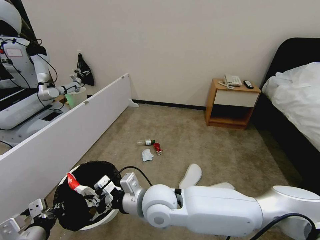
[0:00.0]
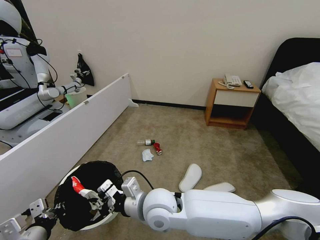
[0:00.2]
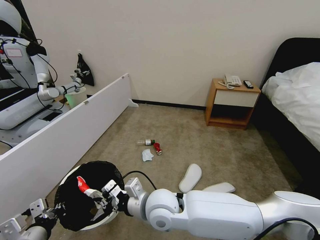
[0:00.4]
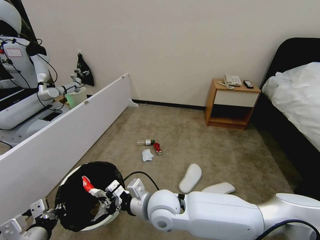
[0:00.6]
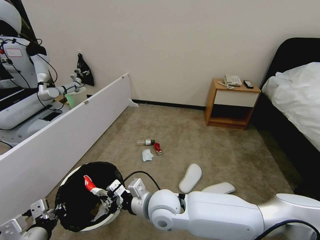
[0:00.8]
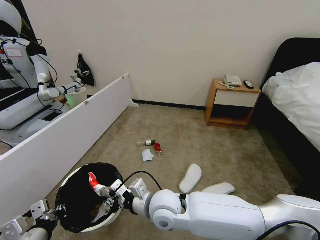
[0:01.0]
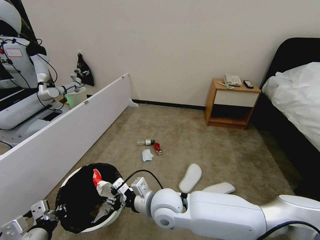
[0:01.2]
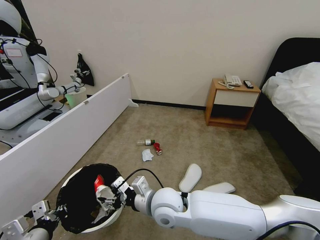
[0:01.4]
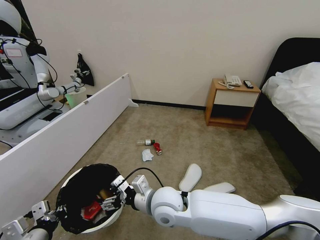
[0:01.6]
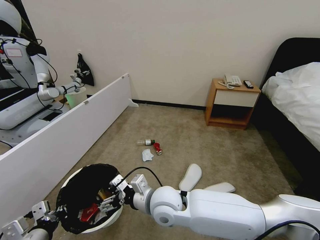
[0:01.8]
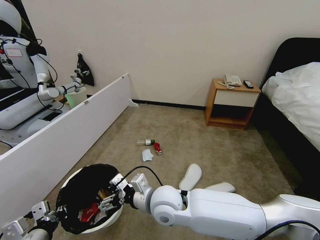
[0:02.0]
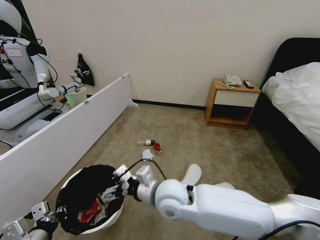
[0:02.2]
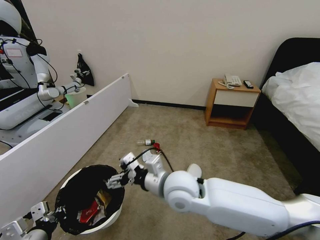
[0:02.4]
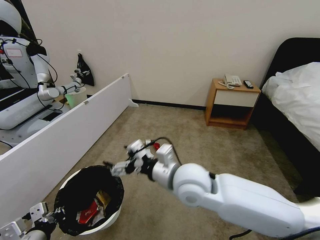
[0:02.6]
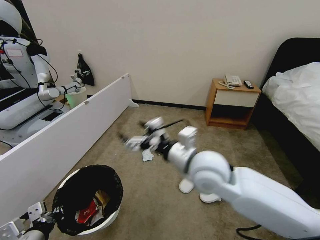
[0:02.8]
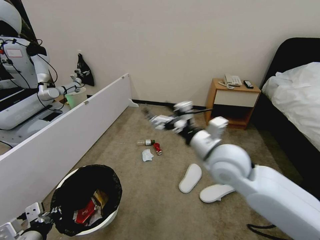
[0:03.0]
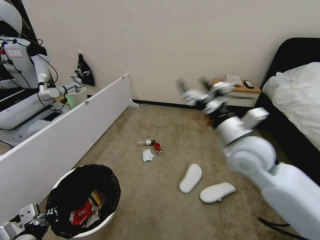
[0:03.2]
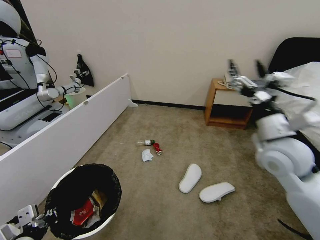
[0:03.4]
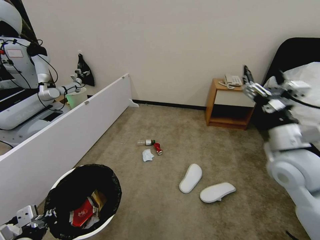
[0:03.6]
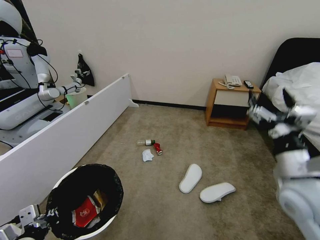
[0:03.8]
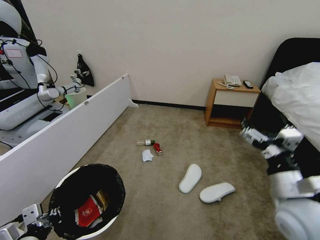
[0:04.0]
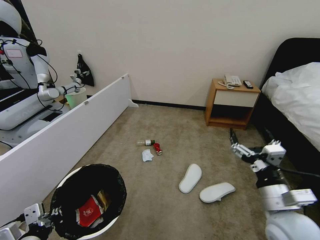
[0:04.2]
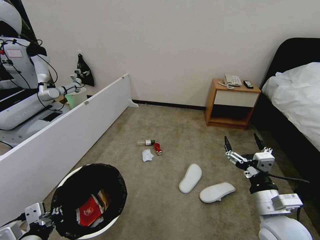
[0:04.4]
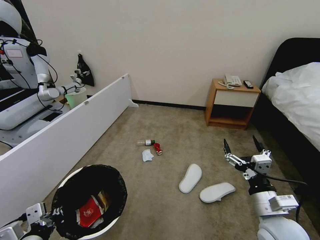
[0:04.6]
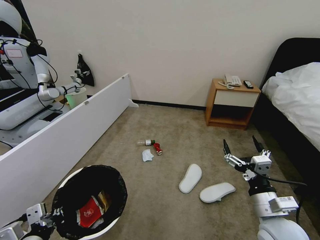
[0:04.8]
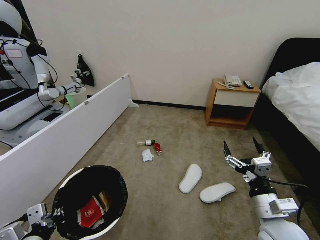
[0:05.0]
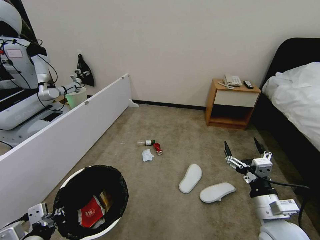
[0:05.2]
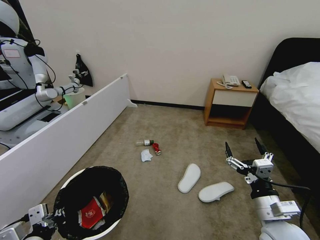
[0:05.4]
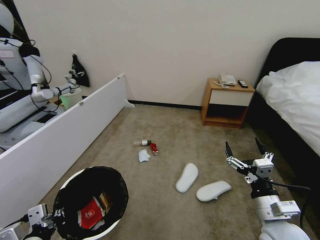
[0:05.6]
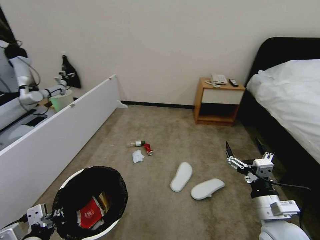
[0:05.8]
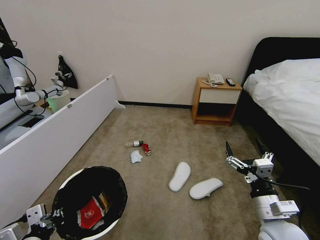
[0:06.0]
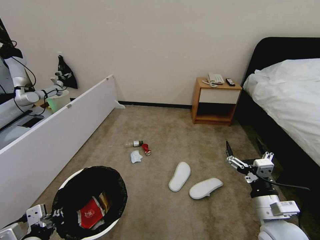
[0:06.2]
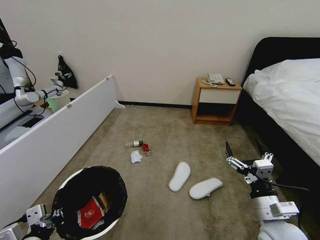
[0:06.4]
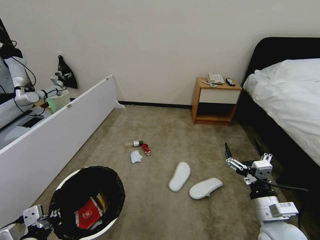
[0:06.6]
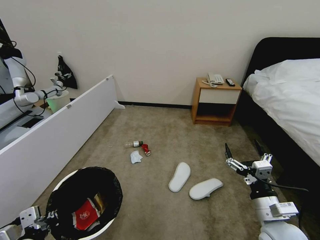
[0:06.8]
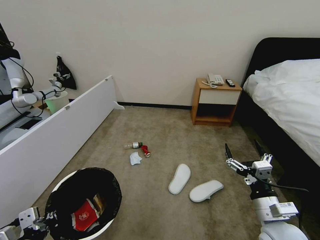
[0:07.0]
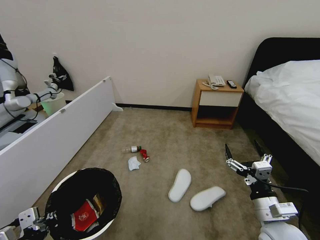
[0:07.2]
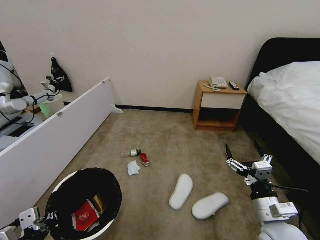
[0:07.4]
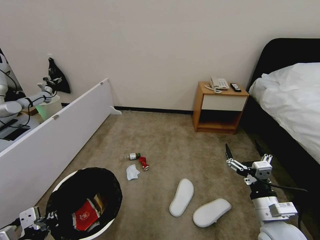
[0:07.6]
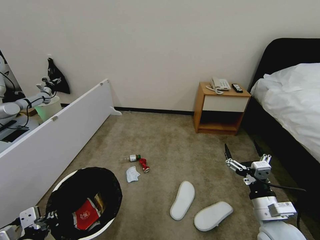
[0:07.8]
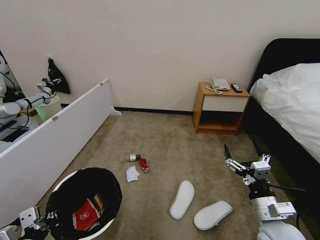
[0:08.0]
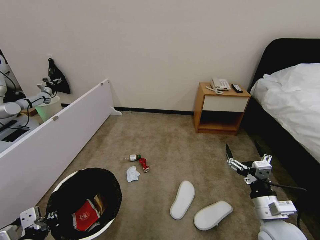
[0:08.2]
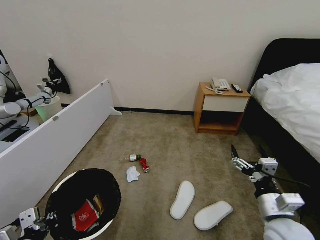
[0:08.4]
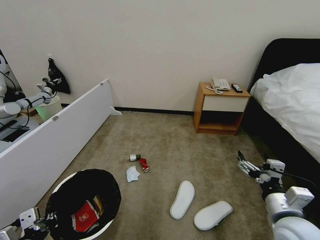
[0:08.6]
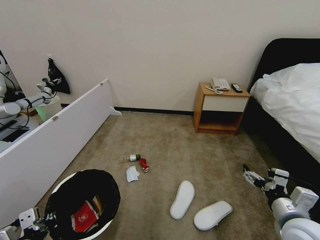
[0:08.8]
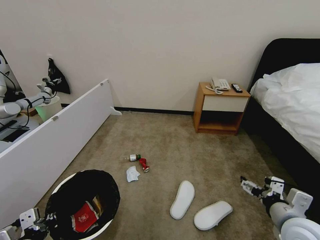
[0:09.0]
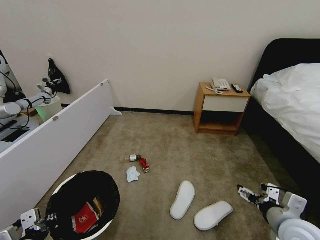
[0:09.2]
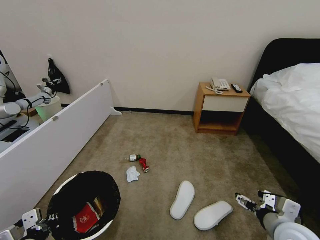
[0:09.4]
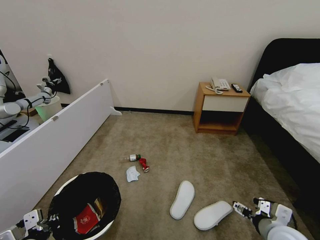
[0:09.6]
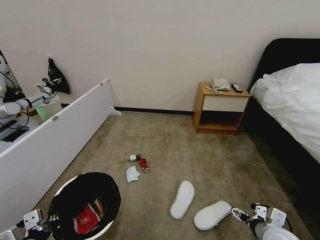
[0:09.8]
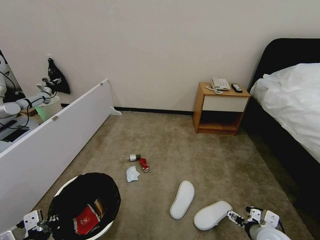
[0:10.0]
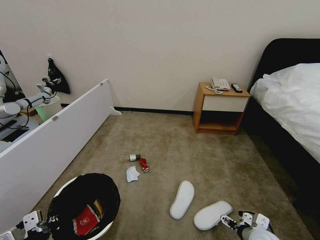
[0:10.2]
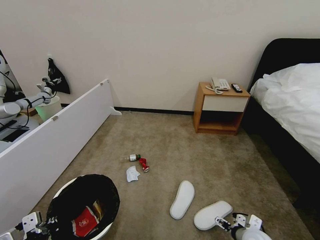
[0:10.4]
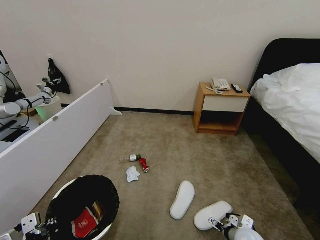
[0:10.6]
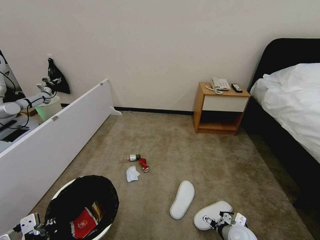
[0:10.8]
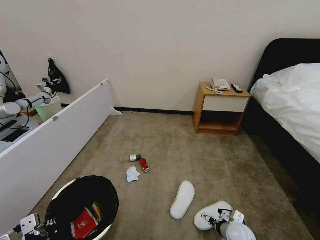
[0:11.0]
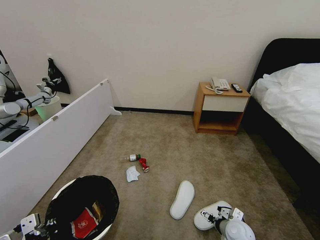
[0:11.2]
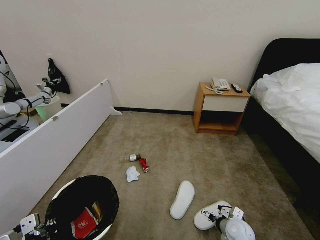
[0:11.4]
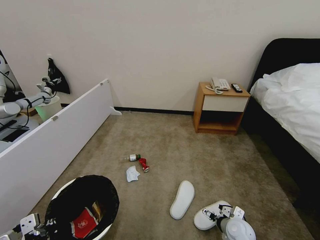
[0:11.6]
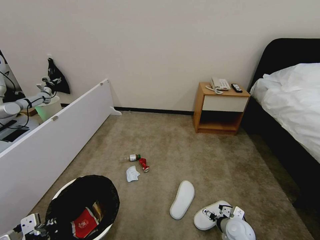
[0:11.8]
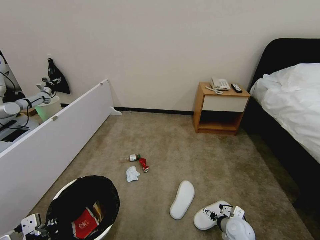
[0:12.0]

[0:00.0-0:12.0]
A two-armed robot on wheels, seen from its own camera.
Task of the whole recording: Pick up the trash bin and place the garbage on the floor into it.
0:00.0 to 0:01.6: The right gripper opens.
0:01.6 to 0:03.0: The right gripper goes some 20 cm to the right and upward.
0:03.0 to 0:04.4: The right gripper heads downward, backward and to the right, covering approximately 20 cm.
0:07.6 to 0:09.0: The right gripper moves roughly 5 cm.
0:09.0 to 0:10.4: The right gripper moves downward, approximately 20 cm.
0:10.4 to 0:12.0: The right gripper is displaced forward by roughly 5 cm.

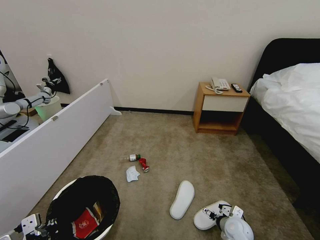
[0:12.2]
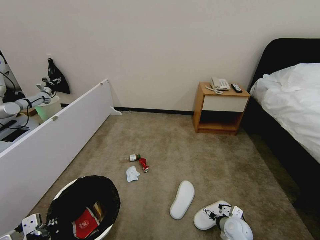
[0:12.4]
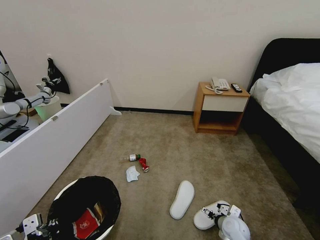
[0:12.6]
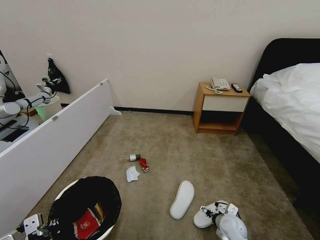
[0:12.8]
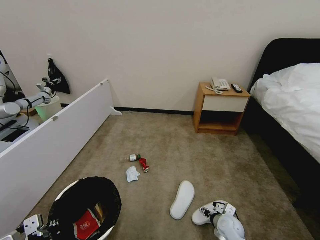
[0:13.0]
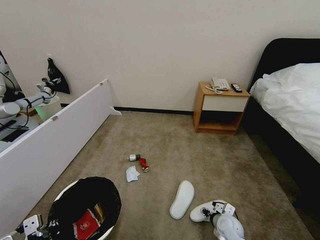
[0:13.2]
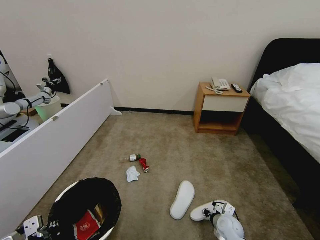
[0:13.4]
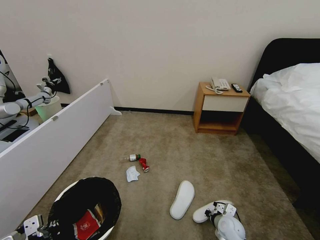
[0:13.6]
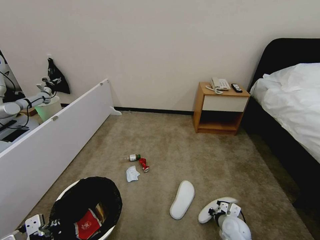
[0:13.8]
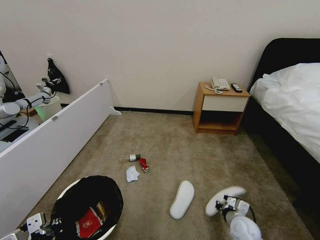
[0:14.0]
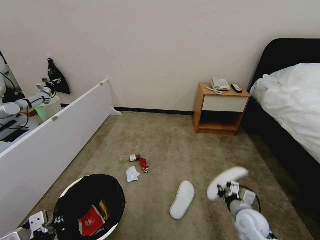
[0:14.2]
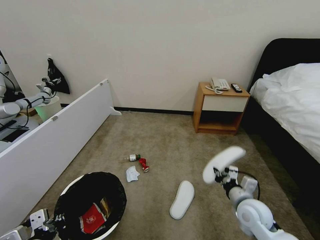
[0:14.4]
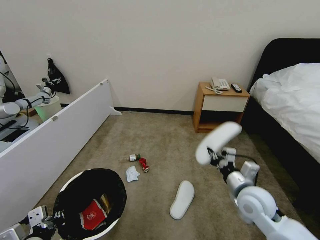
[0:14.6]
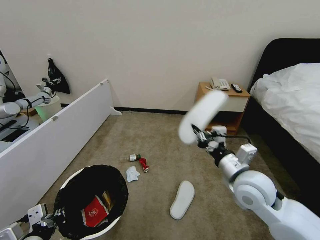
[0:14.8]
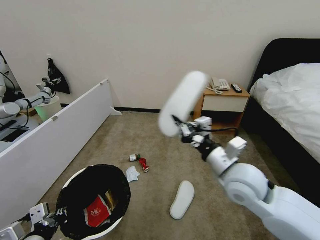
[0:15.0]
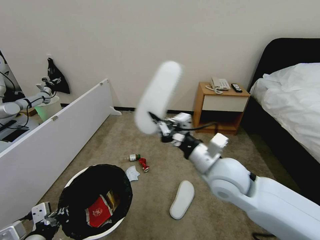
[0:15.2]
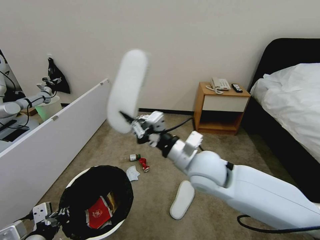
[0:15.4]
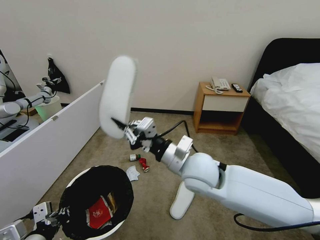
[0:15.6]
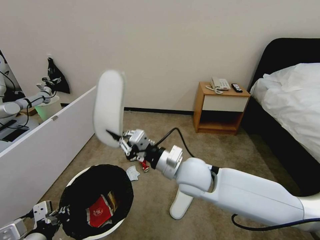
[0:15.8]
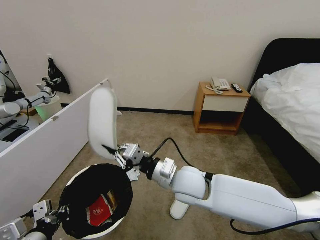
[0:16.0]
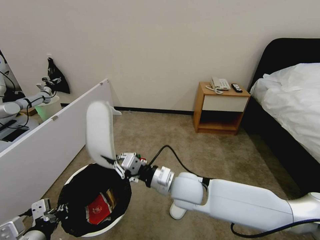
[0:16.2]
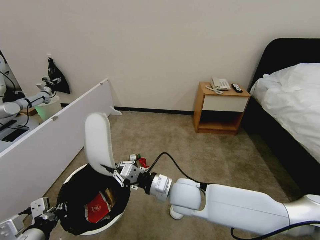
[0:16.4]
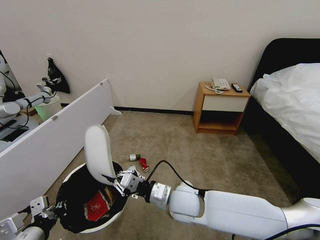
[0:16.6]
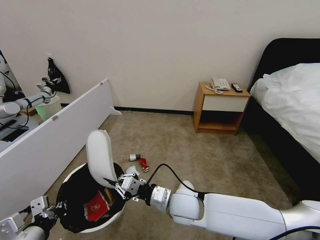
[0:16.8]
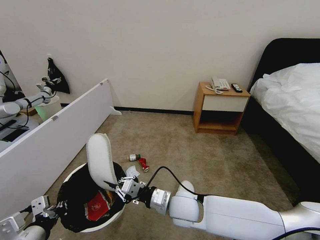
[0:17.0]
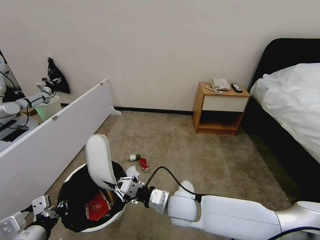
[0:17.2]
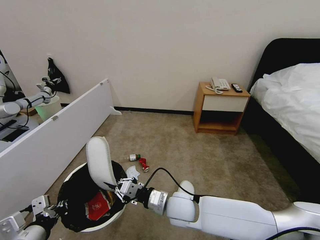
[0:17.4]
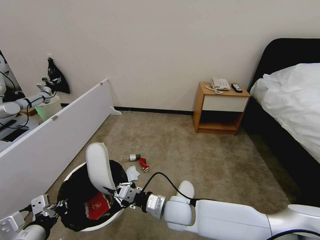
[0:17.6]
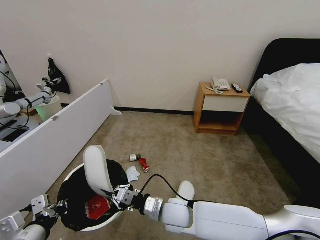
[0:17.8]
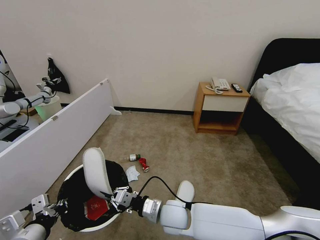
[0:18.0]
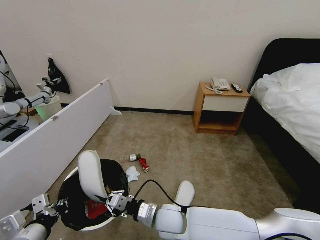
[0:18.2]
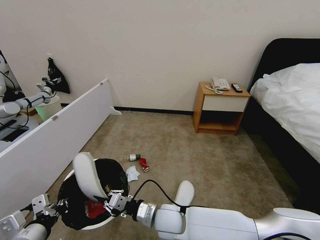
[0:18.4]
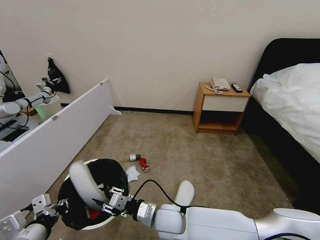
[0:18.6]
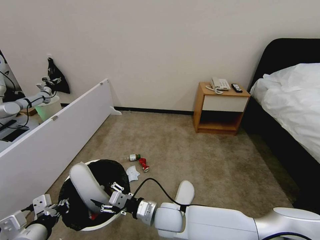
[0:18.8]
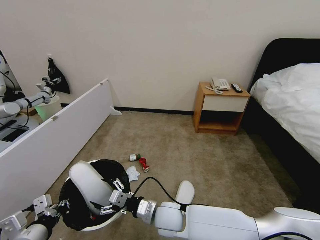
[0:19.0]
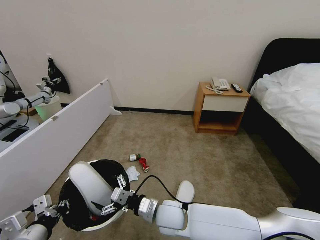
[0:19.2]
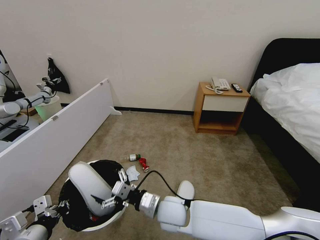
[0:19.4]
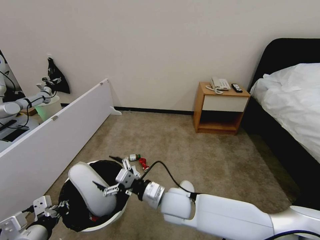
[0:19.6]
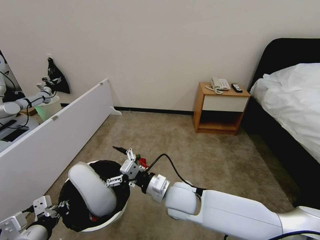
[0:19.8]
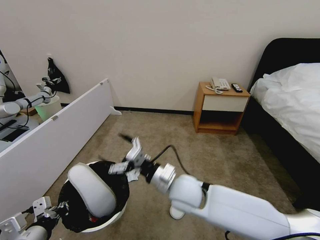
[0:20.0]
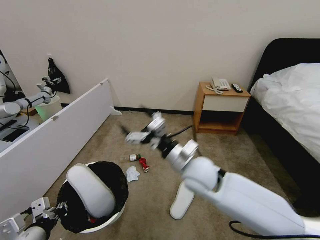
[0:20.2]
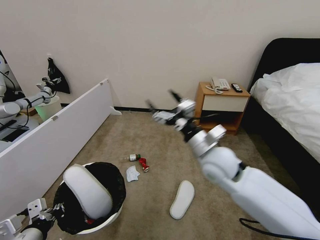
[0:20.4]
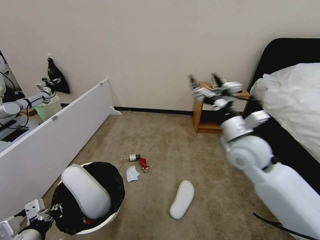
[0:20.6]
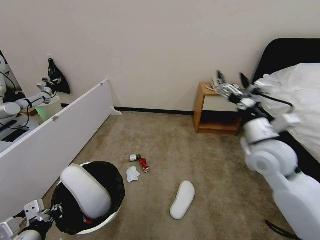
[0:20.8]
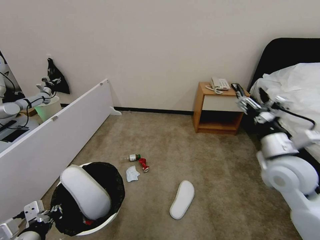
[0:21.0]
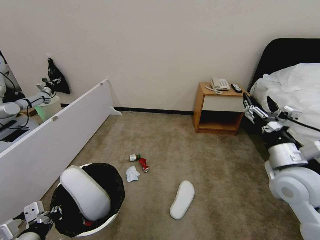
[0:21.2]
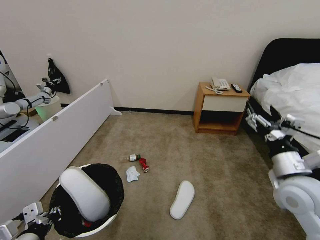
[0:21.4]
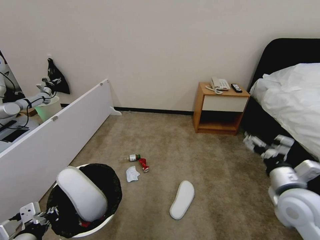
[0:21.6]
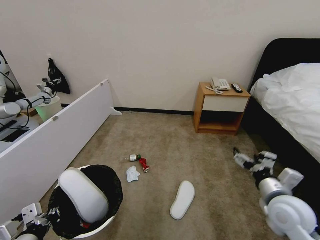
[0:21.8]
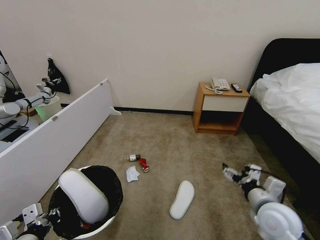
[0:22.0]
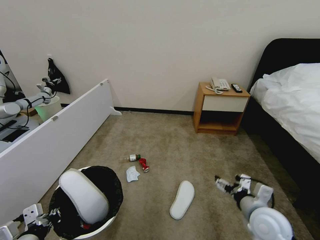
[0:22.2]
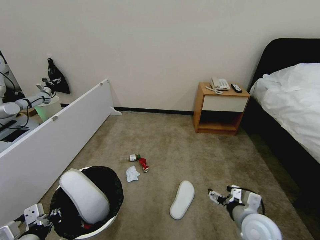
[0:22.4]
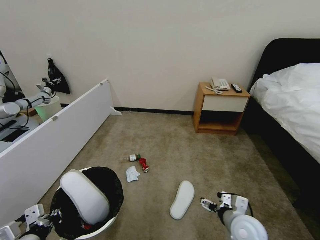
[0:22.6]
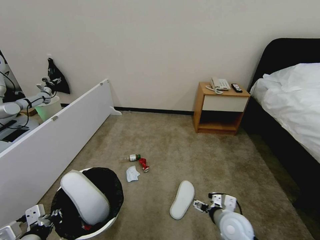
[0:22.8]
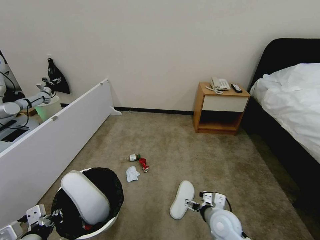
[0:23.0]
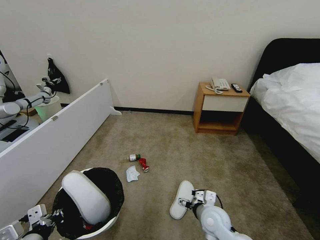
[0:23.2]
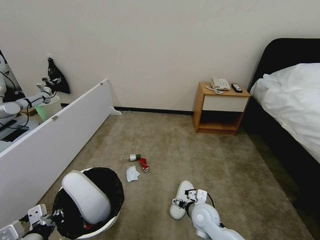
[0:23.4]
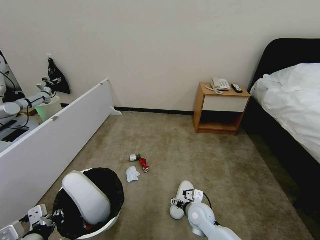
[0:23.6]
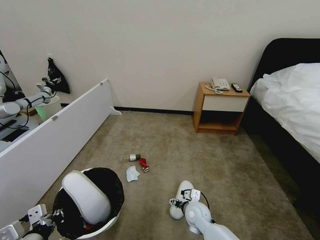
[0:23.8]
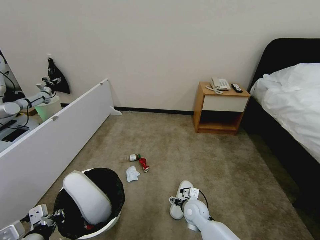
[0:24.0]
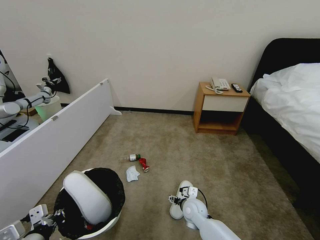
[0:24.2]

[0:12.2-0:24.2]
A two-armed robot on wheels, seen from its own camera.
Task of the whole recording: Pick up the trash bin and place the garbage on the floor into it.
0:12.2 to 0:13.8: The right gripper closes.
0:13.8 to 0:15.2: The right gripper is displaced upward by some 35 cm.
0:15.2 to 0:16.6: The right gripper is displaced downward and to the left by approximately 15 cm.
0:16.6 to 0:18.2: The right gripper travels downward by approximately 10 cm.
0:18.2 to 0:19.8: The right gripper moves upward, some 10 cm, and opens.
0:19.8 to 0:21.2: The right gripper heads to the right, covering approximately 30 cm.
0:21.2 to 0:22.6: The right gripper shifts about 20 cm downward.
0:22.6 to 0:24.2: The right gripper is displaced to the left, downward and forward by about 20 cm.
